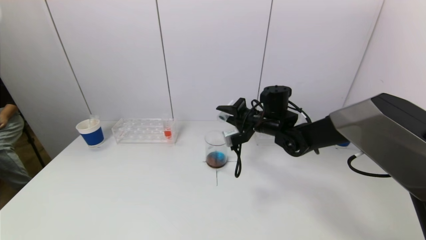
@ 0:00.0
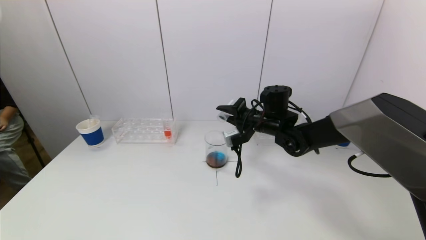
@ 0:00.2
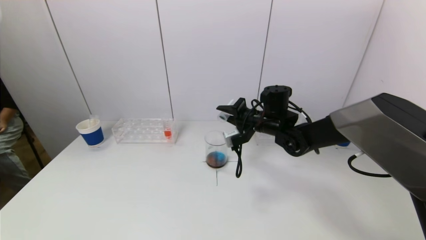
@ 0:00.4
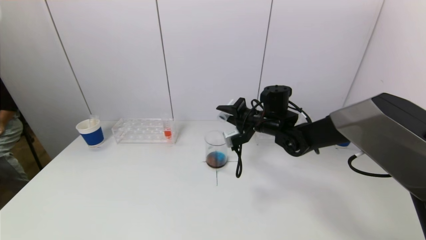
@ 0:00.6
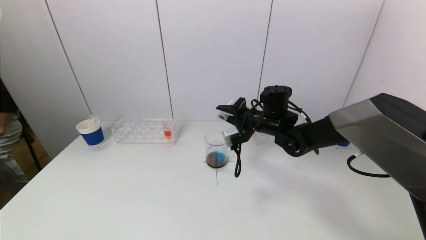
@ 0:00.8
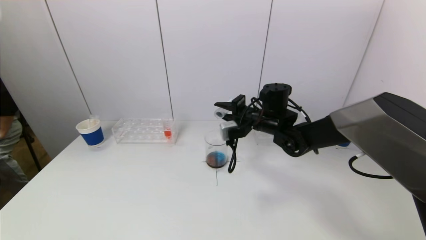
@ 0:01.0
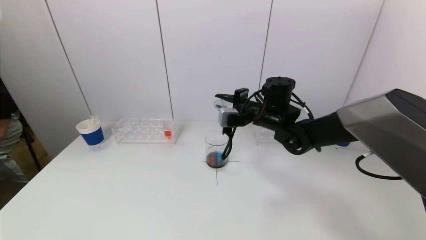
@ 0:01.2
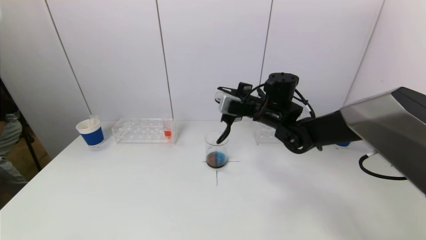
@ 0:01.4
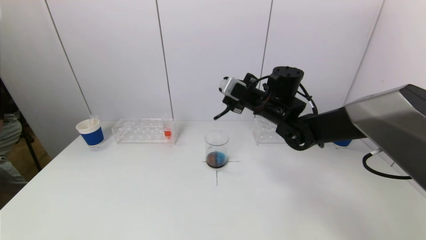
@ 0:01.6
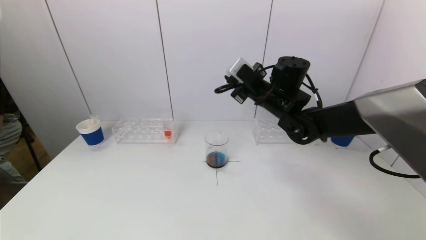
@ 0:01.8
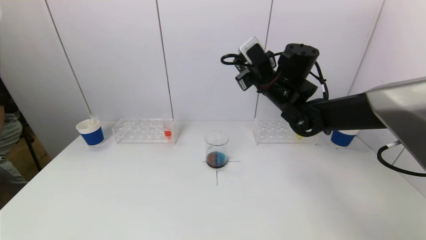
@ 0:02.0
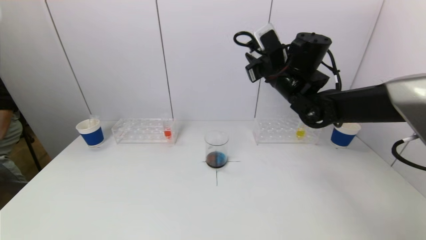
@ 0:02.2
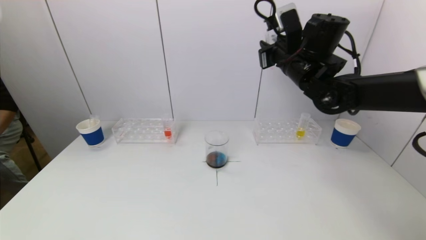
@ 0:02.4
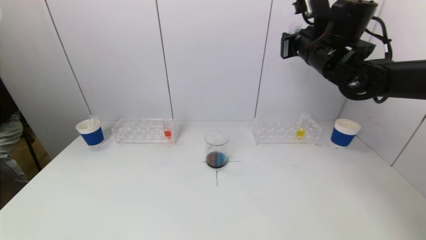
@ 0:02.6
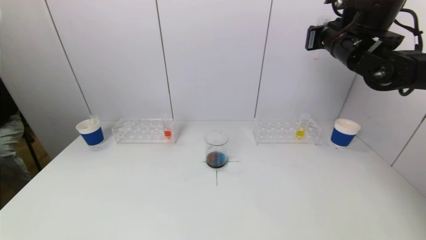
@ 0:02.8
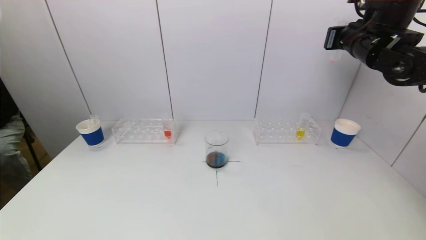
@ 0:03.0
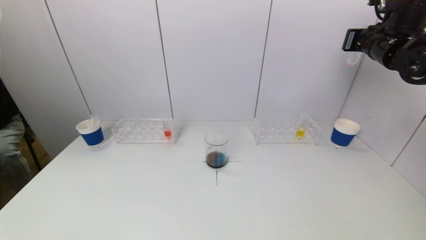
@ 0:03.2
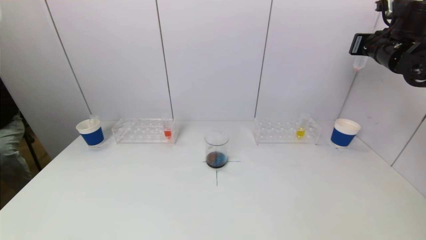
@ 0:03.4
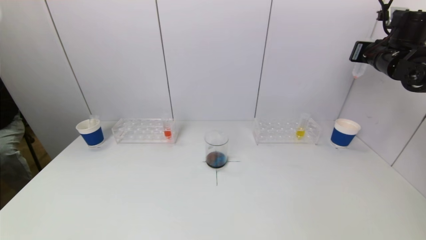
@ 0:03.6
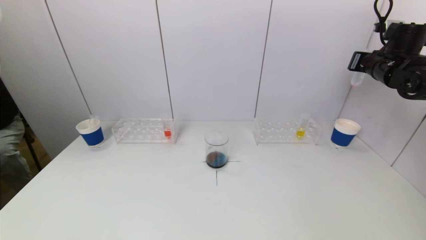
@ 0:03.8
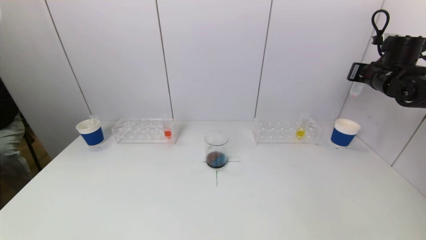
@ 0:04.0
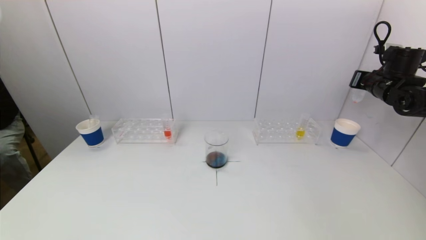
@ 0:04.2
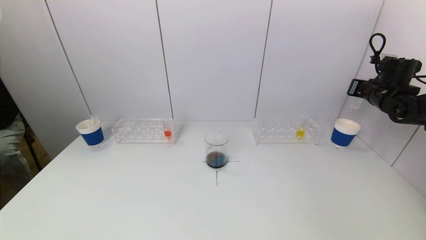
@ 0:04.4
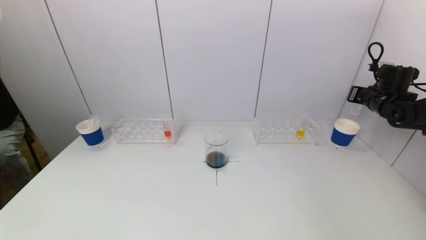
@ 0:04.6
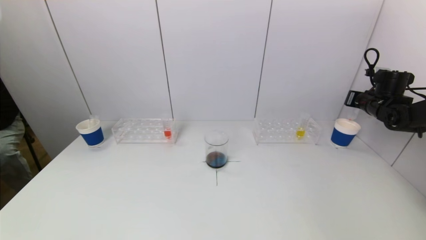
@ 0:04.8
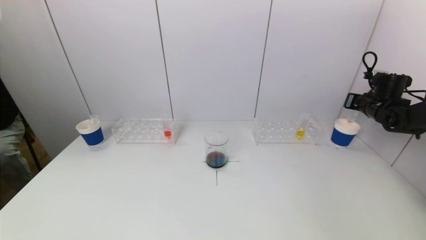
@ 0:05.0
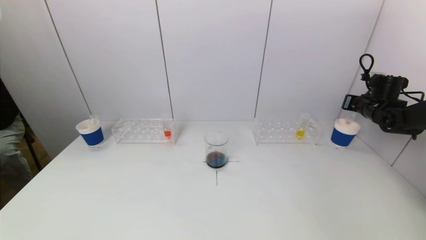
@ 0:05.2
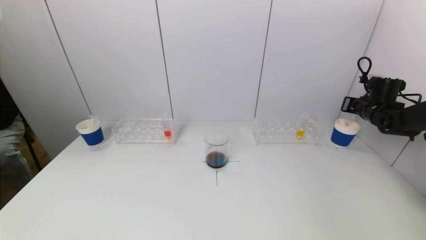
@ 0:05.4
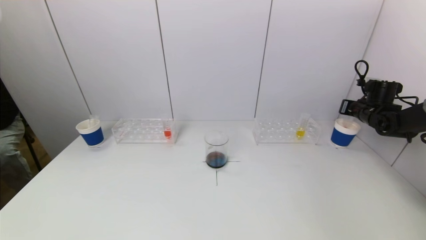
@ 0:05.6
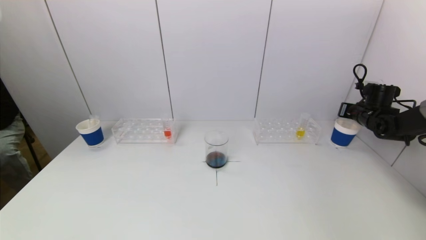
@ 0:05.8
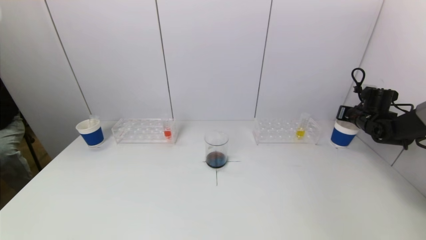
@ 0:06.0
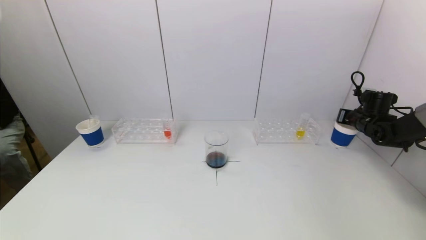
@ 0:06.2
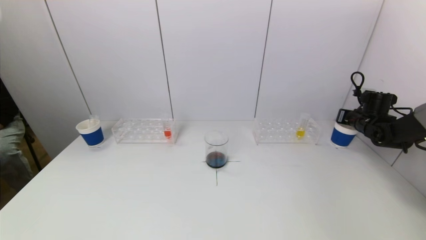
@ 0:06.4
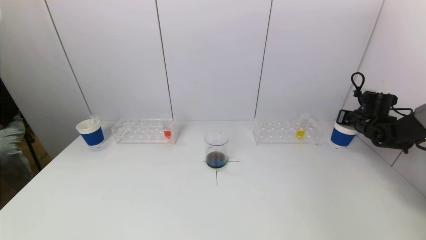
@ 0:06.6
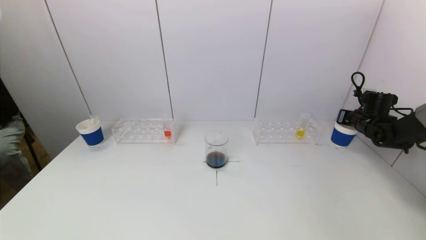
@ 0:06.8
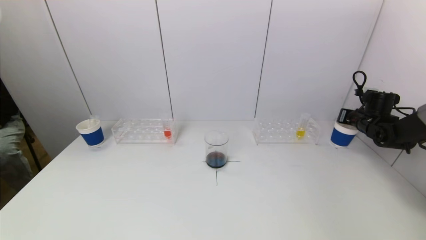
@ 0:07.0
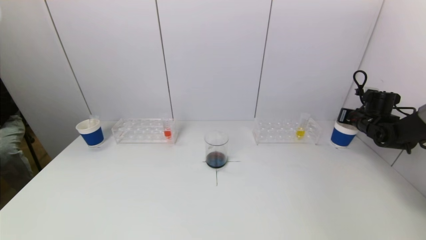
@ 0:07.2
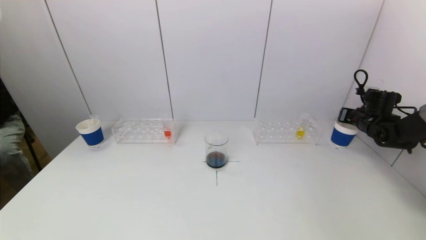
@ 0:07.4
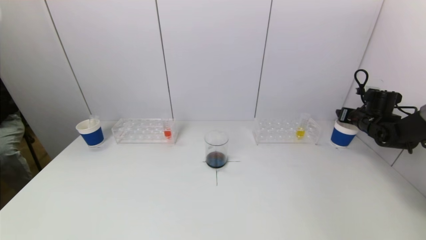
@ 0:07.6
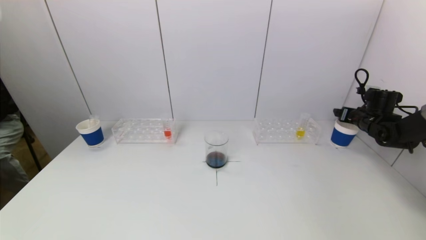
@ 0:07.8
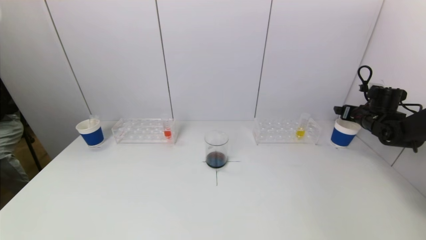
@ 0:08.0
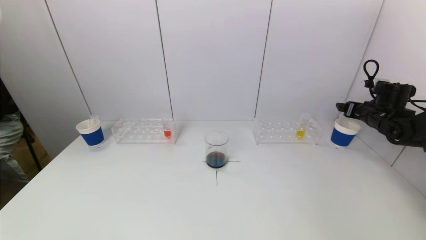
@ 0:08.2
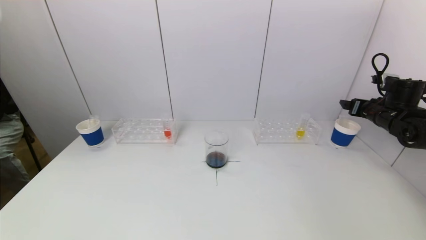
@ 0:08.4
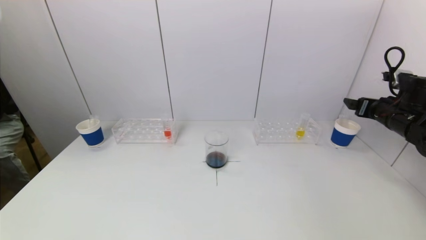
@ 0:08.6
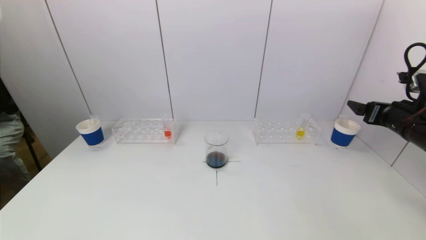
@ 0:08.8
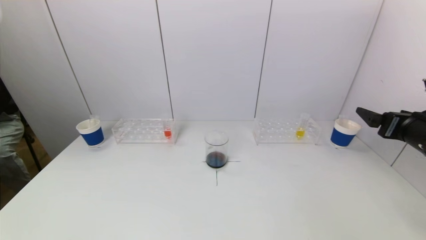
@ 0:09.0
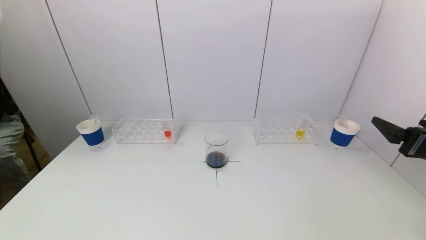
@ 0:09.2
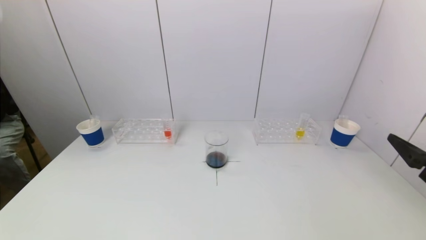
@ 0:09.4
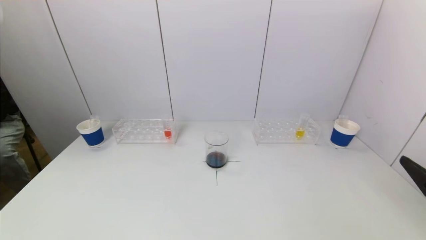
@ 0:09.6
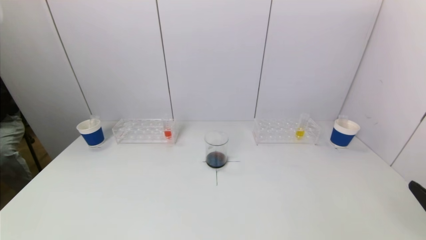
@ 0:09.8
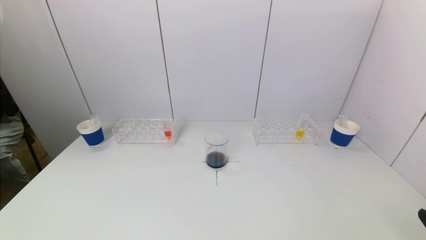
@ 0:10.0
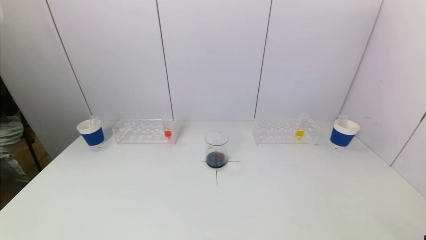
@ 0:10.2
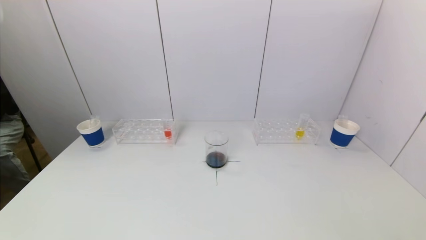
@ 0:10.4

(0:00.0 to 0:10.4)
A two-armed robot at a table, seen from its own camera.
Task of the whole recording: pick up a test tube with pigment on left test tube rack and a test tube with pigment on right test tube rack by grippers and pour them into the beaker.
Step, 0:00.8 - 0:07.8: Place the test tube into the paper cup with the right gripper.
0:01.4 - 0:03.0: The right gripper shifts roughly 25 cm to the right and upward.
0:03.0 - 0:04.4: The right gripper travels downward and to the right by roughly 20 cm.
0:04.4 - 0:06.0: The right gripper travels downward by some 10 cm.
0:06.0 - 0:07.4: Neither gripper changes place.
0:07.4 - 0:09.0: The right gripper moves backward and upward, some 25 cm, and opens up.
0:09.0 - 0:10.4: The right gripper heads backward and downward, covering approximately 25 cm.

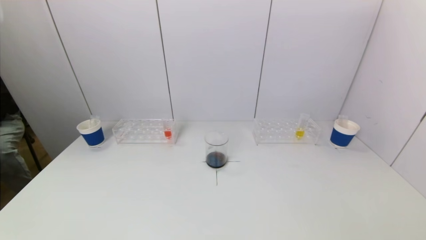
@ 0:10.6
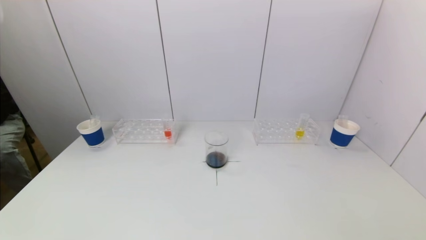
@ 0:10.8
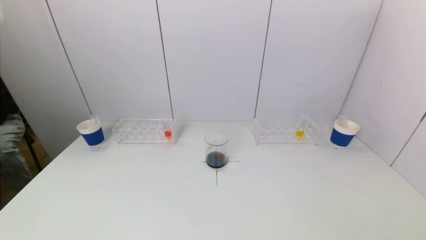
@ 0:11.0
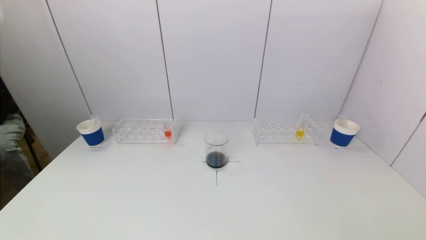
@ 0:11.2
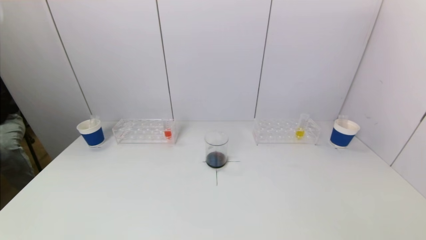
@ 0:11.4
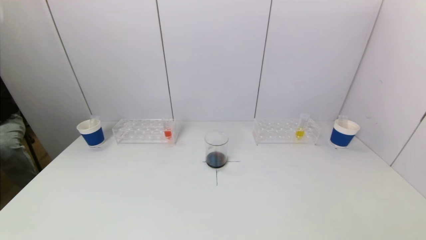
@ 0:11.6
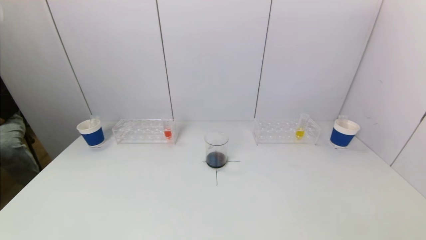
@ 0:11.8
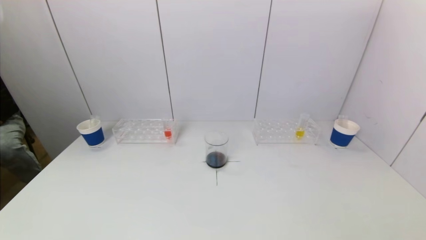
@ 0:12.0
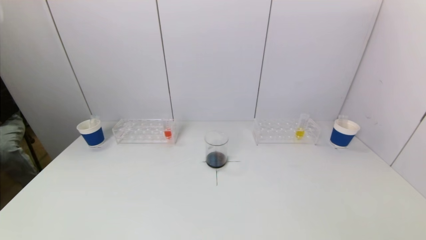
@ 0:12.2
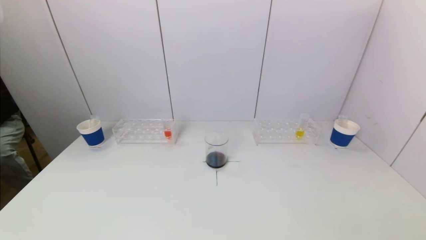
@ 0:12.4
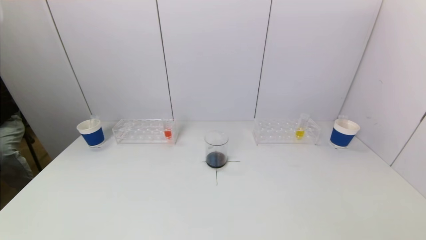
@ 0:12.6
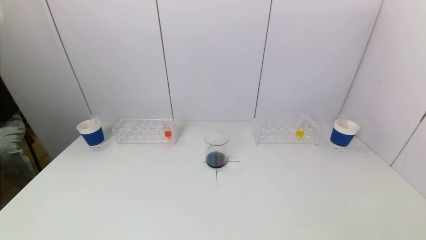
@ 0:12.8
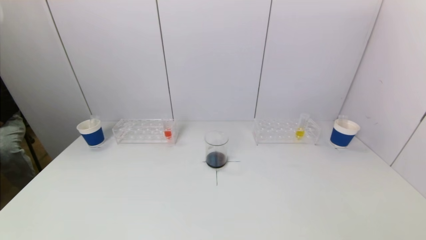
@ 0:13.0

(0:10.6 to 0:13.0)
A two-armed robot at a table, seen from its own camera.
Task of the whole recording: pick up a test tube with pigment on left test tube rack and a test tube with pigment on right test tube rack by grippers and pour them into the beaker.
0:10.6 - 0:11.8: The two grippers keep their place.
0:11.8 - 0:13.0: Both grippers stay put.
